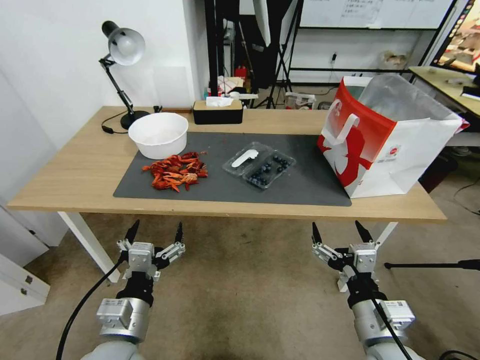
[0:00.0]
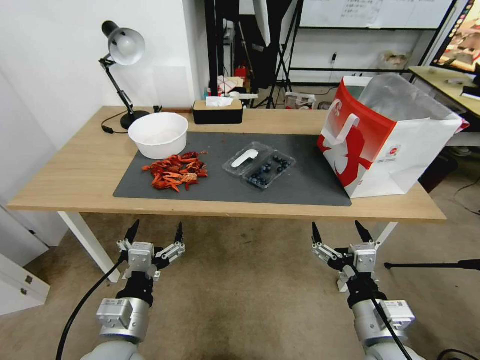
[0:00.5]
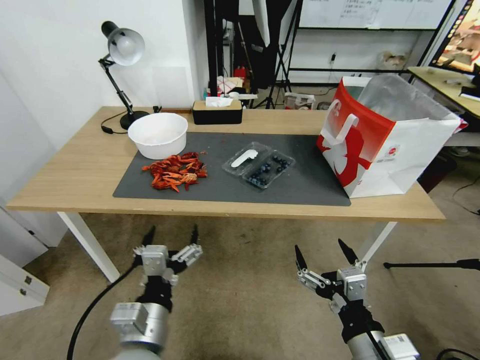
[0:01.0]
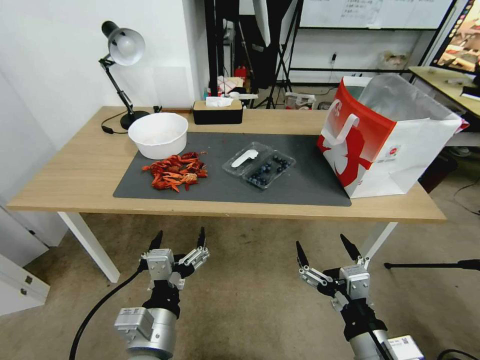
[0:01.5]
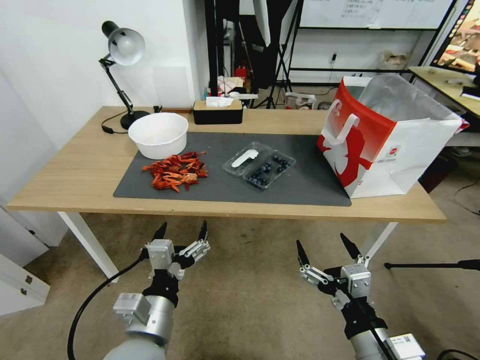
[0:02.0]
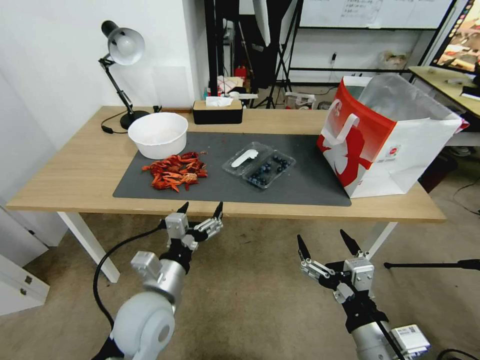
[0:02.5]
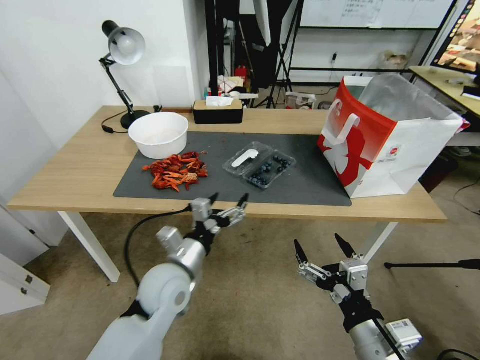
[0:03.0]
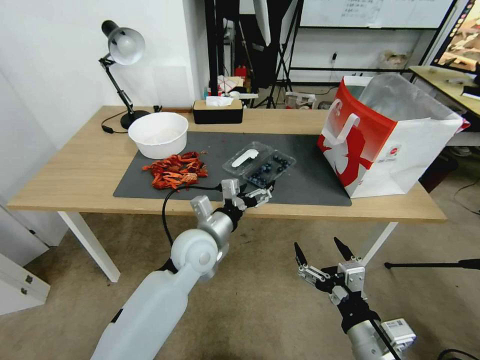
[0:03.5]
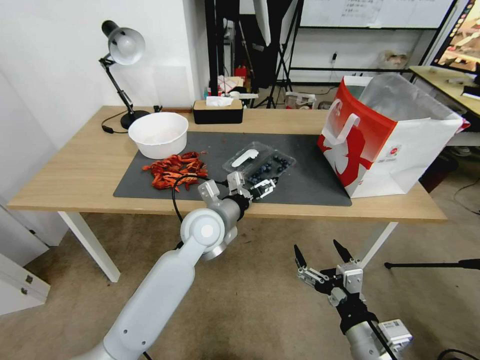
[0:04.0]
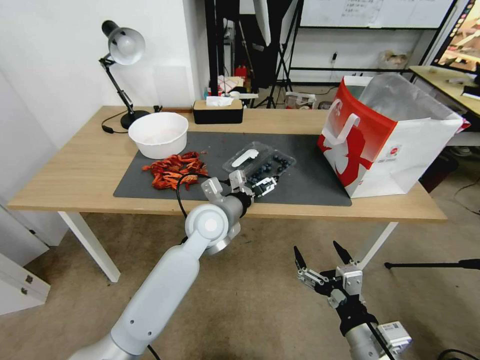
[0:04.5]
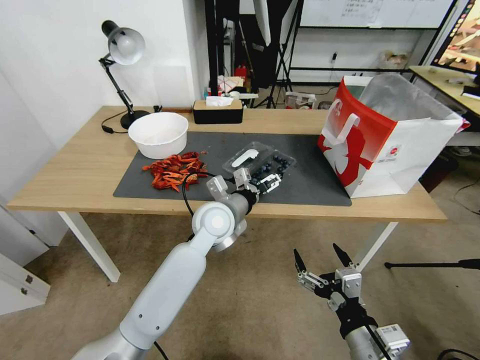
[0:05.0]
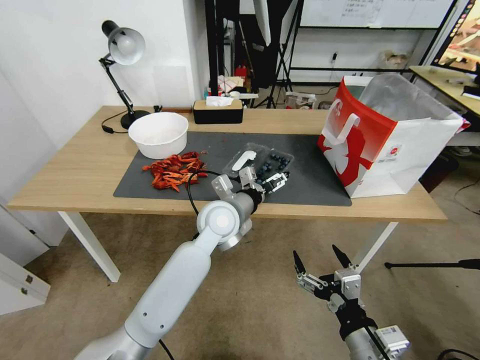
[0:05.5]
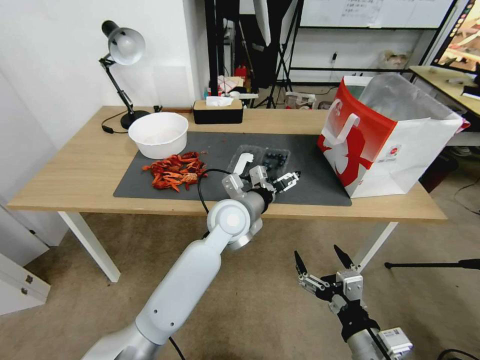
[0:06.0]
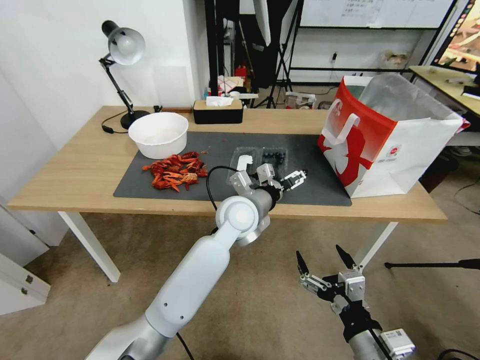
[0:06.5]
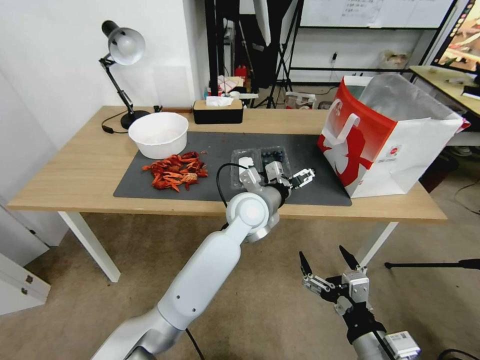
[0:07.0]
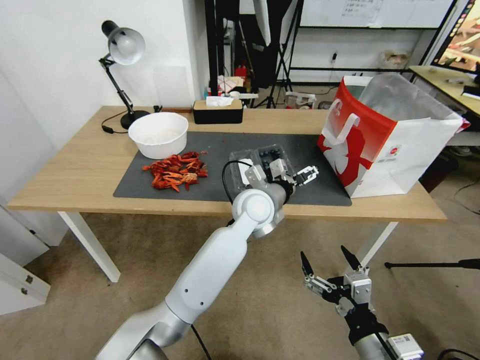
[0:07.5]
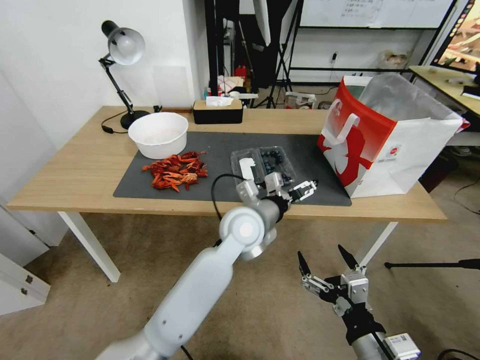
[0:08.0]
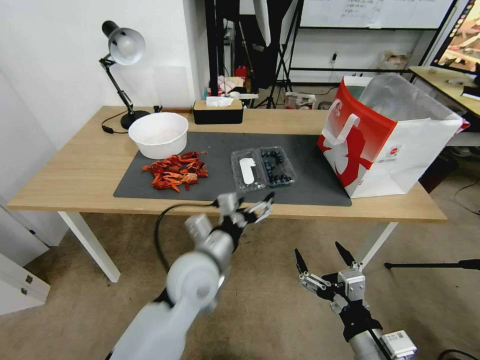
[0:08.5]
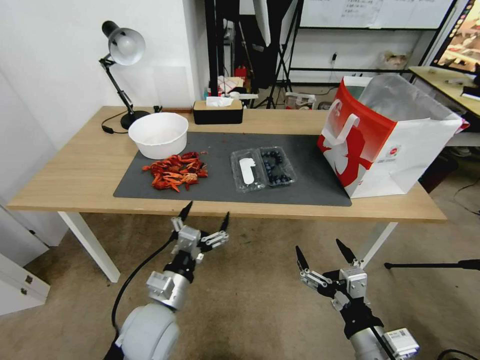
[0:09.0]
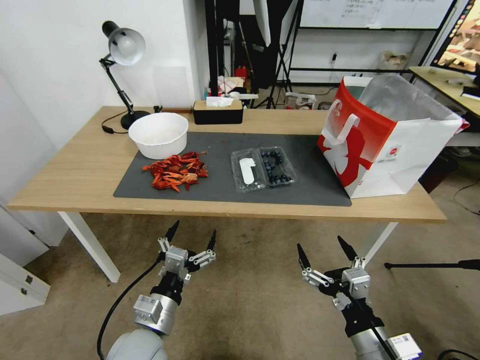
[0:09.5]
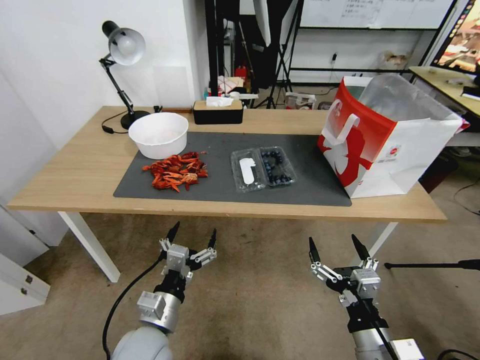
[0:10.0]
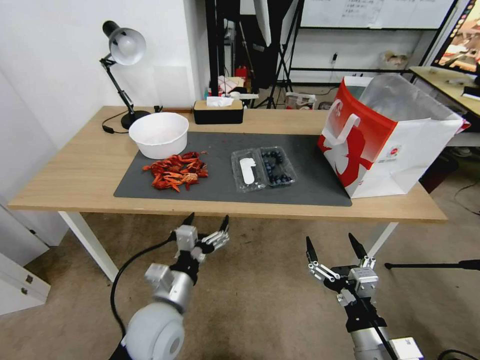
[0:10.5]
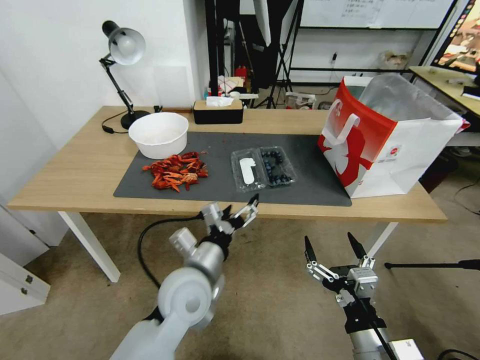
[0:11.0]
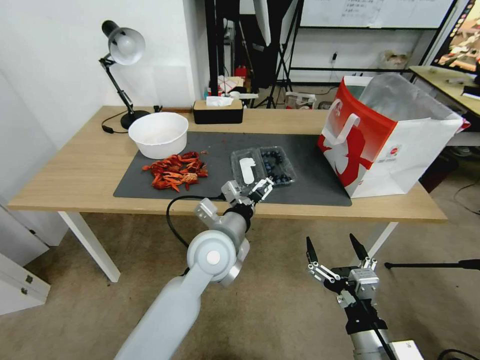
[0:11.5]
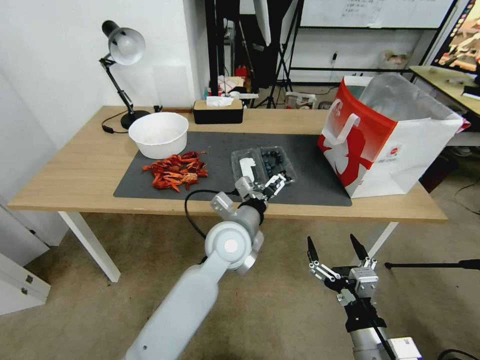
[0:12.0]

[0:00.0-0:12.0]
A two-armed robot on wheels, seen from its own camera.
Task of the whole recording: Close the takeout container lid, then place the container into the takeout bag.
0:02.0 to 0:04.0: The left gripper travels forward by some 25 cm.
0:04.0 to 0:06.0: The left gripper is displaced to the right by about 5 cm.
0:06.0 to 0:08.0: The grippers make only small movements.
0:08.0 to 0:10.0: The left gripper moves backward, to the left and downward, roughly 30 cm.
0:10.0 to 0:12.0: The left gripper is displaced forward, to the right and upward by about 25 cm.

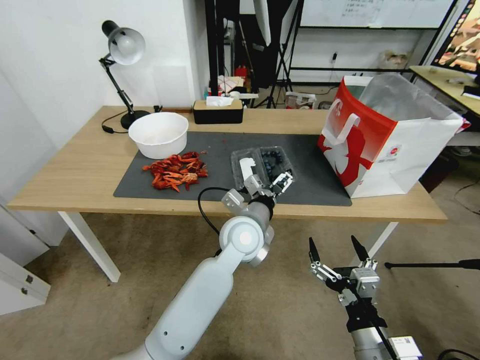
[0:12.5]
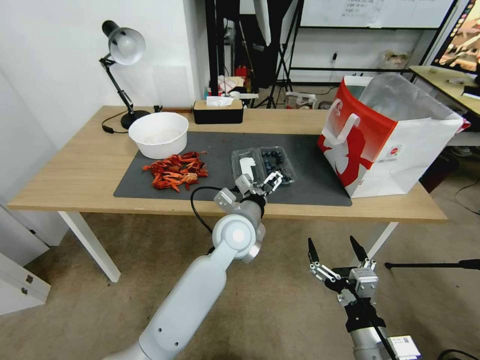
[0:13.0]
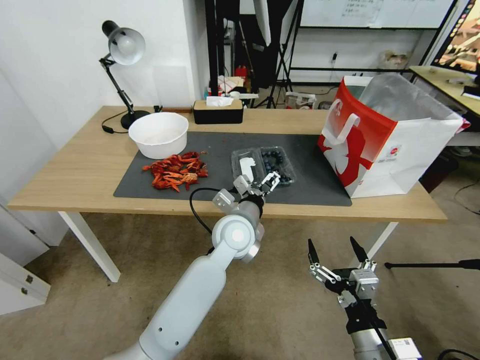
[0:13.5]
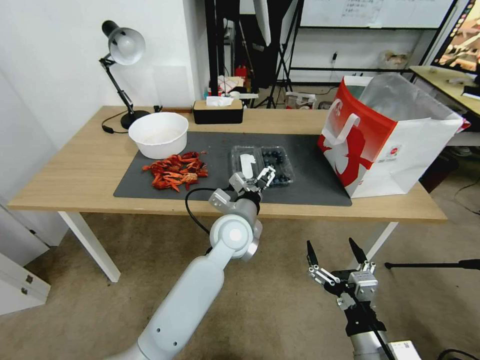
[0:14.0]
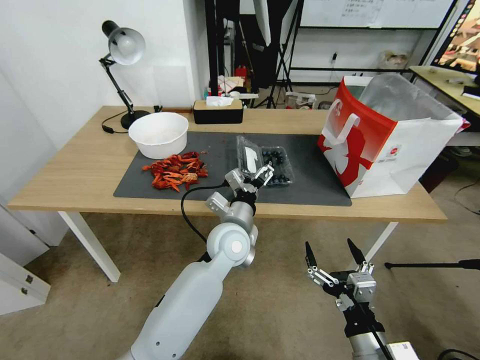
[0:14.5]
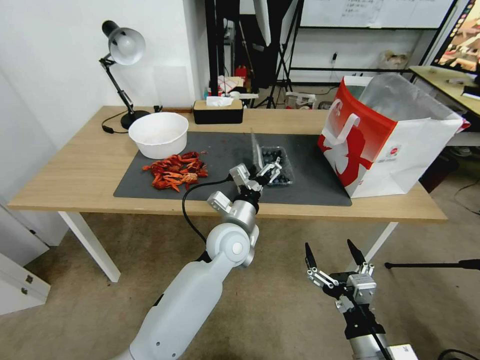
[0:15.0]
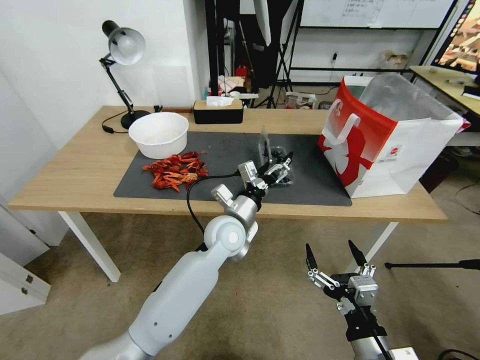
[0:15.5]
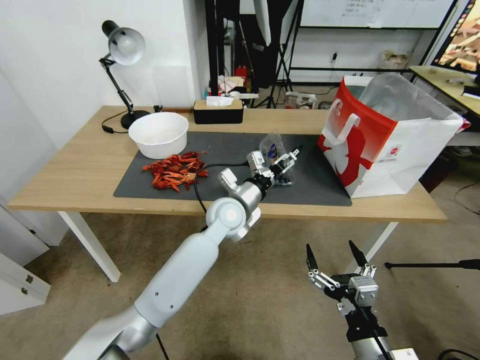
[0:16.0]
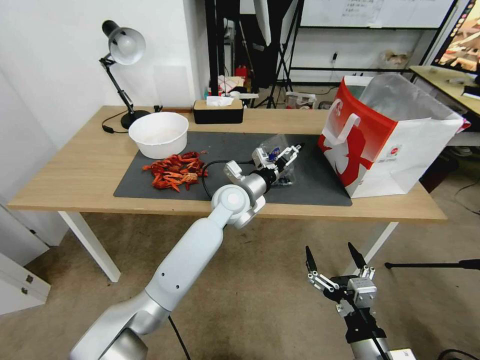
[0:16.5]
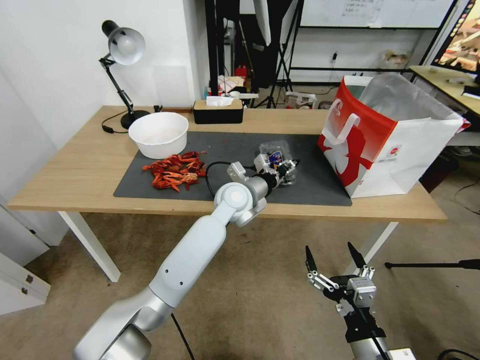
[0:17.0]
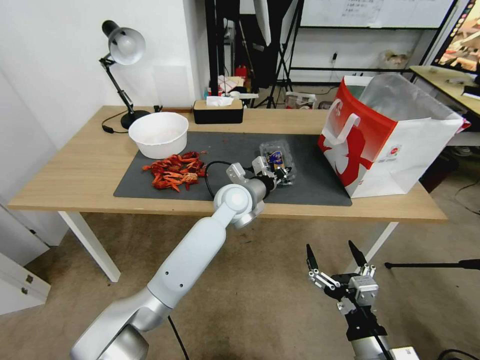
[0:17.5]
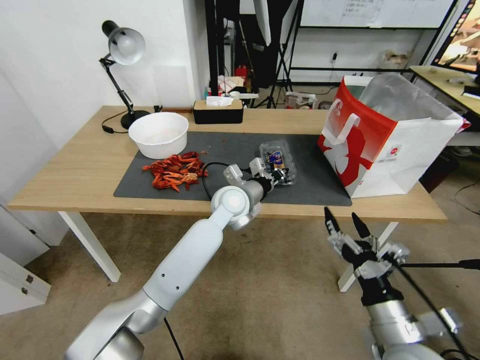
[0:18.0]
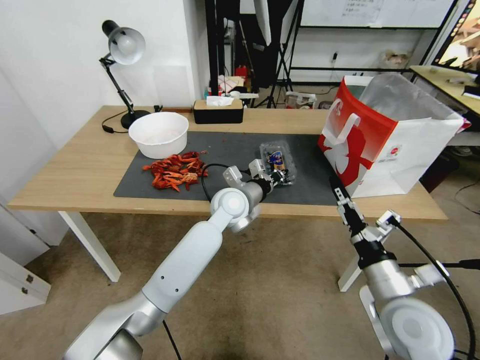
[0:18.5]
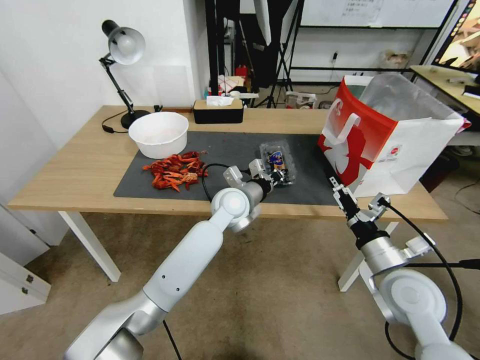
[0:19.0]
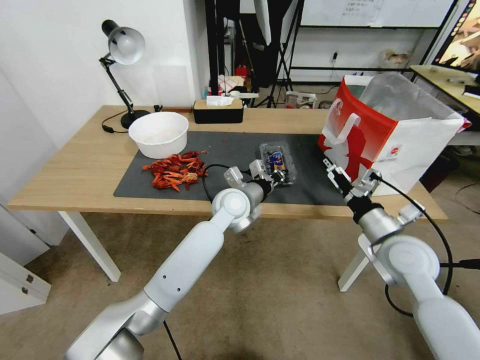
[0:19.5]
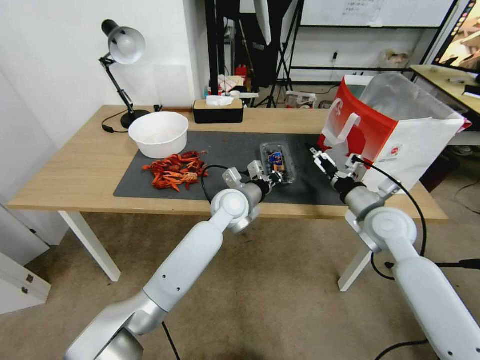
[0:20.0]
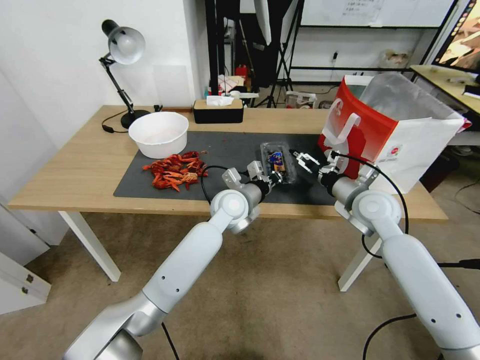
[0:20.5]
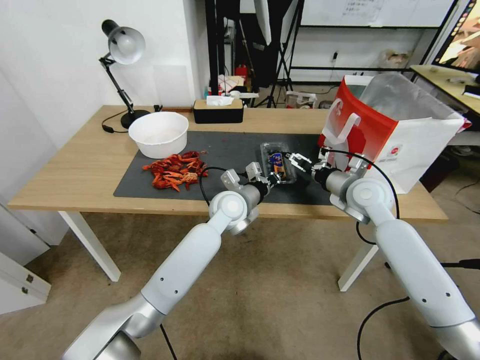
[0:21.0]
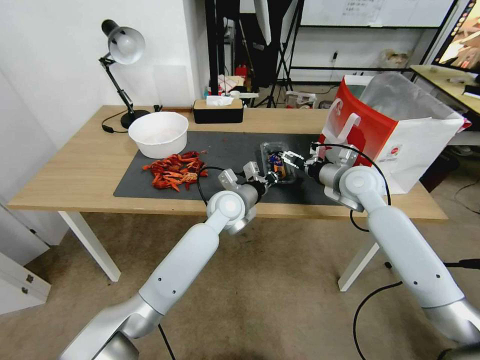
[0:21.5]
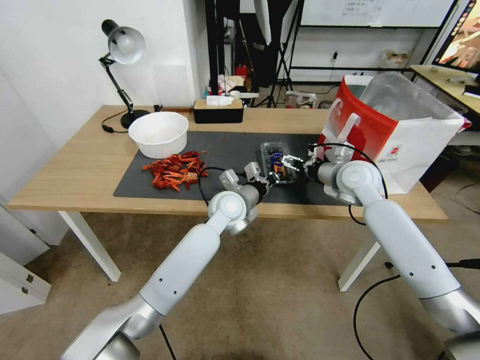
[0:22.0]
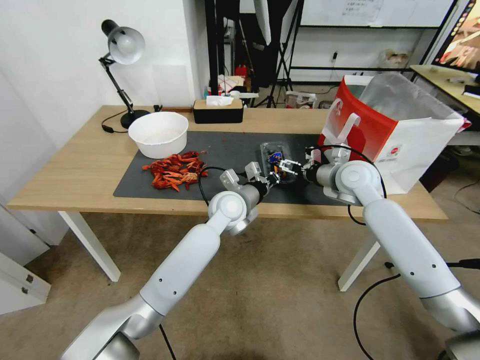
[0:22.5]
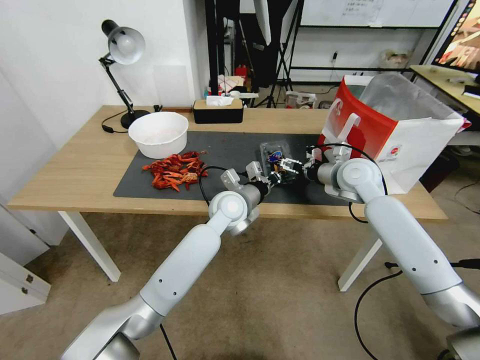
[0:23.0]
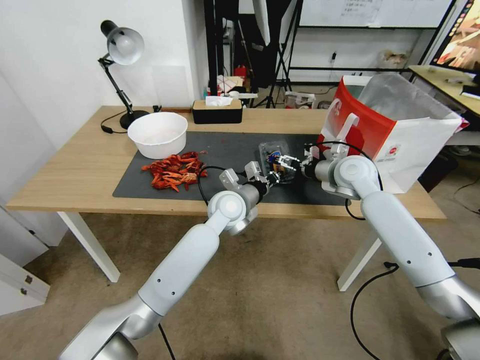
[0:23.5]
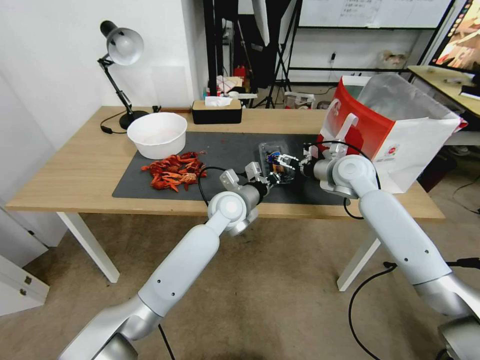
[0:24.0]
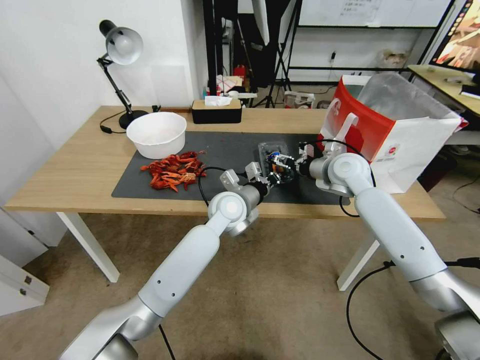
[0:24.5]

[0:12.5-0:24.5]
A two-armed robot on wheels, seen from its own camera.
Task of the whole recording: Close the takeout container lid, then place the container into the takeout bag.
0:12.5 to 0:14.5: The grippers move only a little.
0:14.5 to 0:16.5: The left gripper goes some 10 cm forward.
0:16.5 to 0:18.5: The right gripper goes approximately 10 cm forward and upward; the left gripper closes.
0:18.5 to 0:20.5: The right gripper goes about 20 cm forward.
0:20.5 to 0:22.5: The right gripper goes some 5 cm forward.
0:22.5 to 0:24.5: The grippers move only a little.

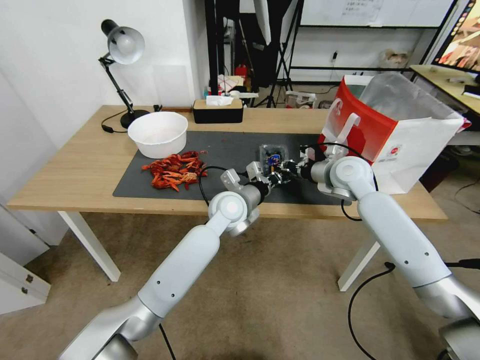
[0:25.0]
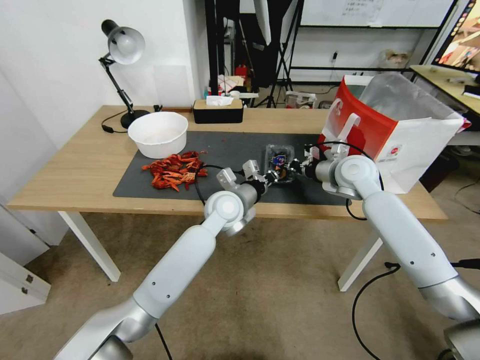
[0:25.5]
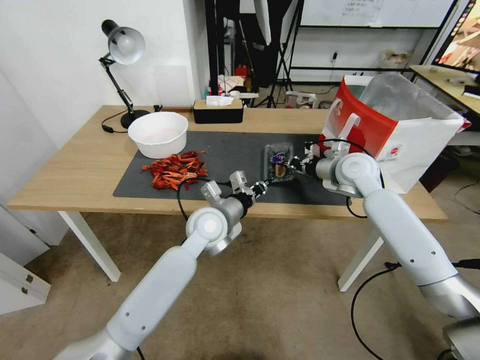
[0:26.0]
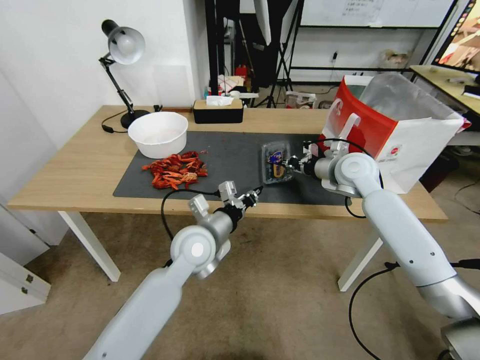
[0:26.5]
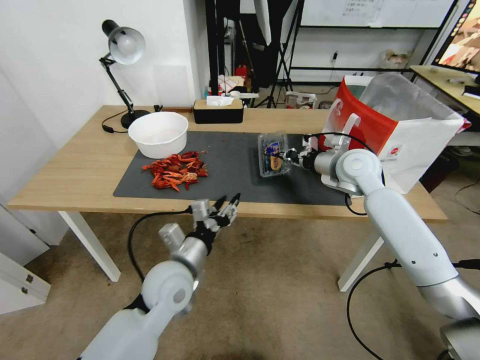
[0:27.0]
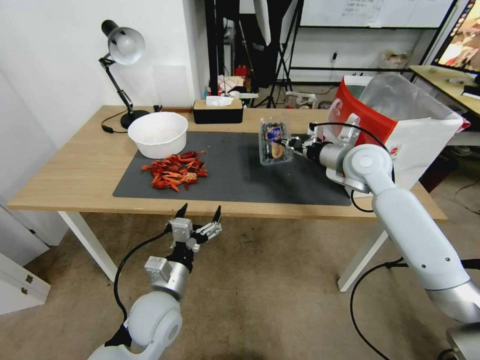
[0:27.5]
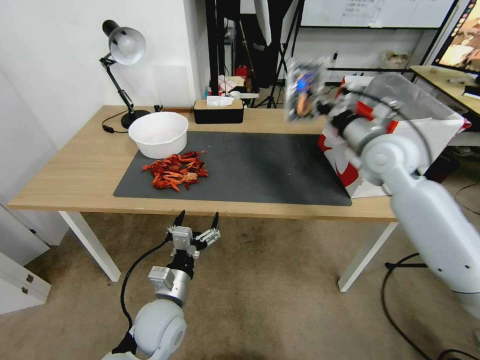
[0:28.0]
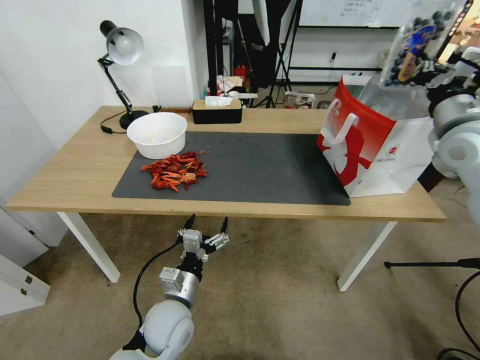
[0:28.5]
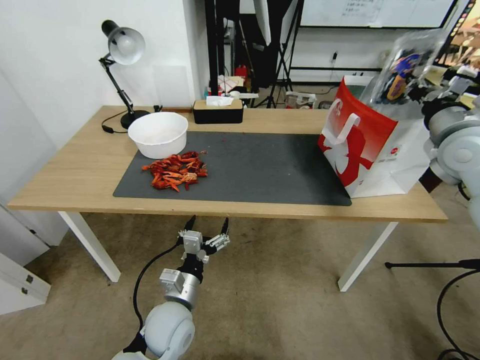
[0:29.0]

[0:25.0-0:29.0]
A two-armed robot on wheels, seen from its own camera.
Task of the whole recording: Close the takeout container lid, then place the container into the takeout bag.
0:25.0 to 0:27.0: The left gripper shifts some 20 cm backward and to the left, and opens.
0:27.0 to 0:29.0: The right gripper is displaced to the right, upward and backward by some 20 cm. Meanwhile the left gripper is displaced downward by roughly 10 cm, and opens its fingers.
